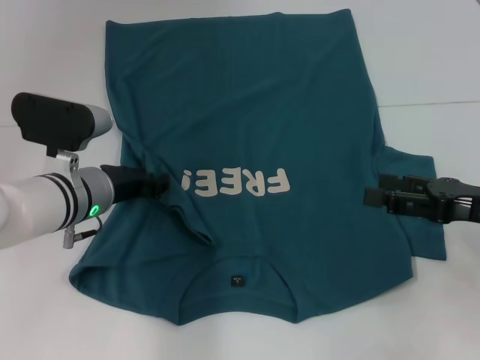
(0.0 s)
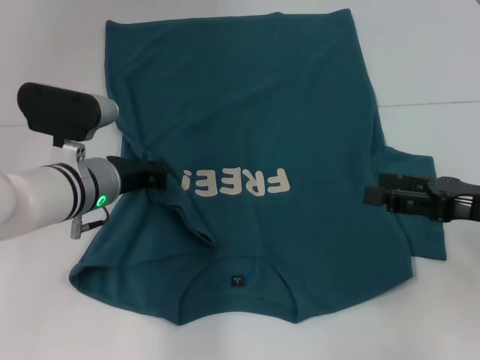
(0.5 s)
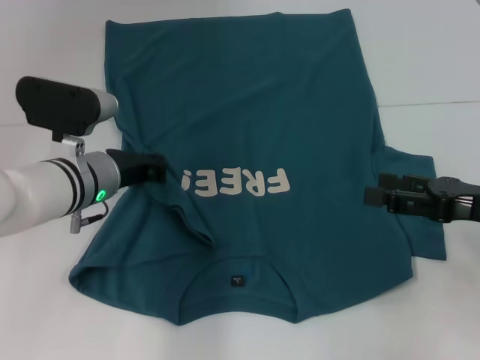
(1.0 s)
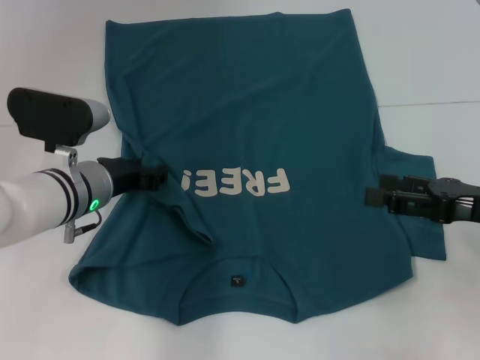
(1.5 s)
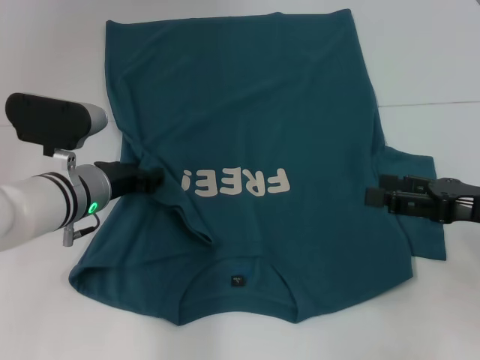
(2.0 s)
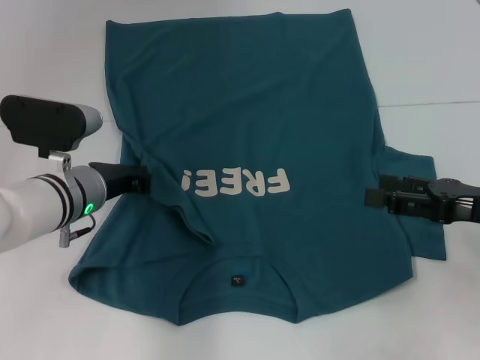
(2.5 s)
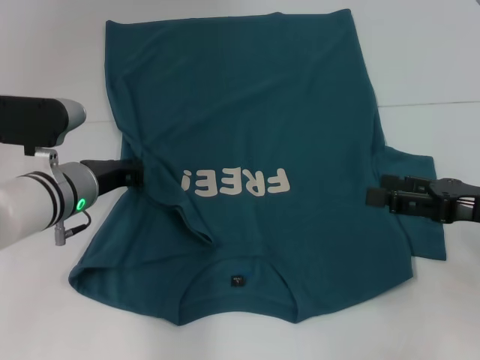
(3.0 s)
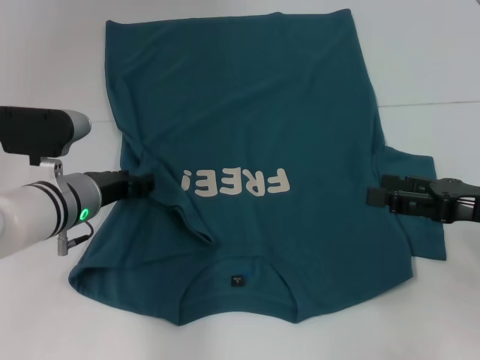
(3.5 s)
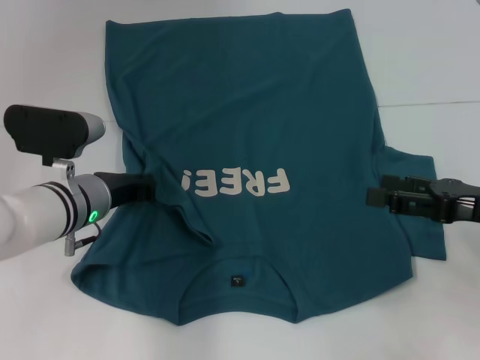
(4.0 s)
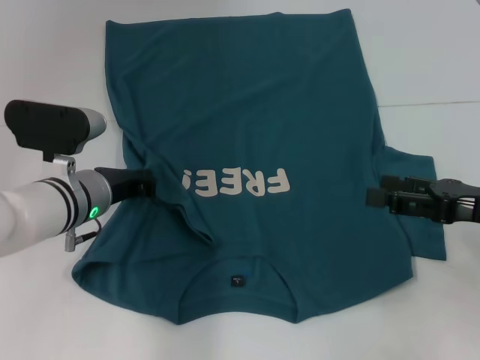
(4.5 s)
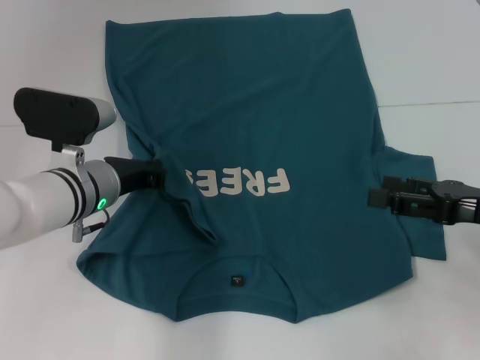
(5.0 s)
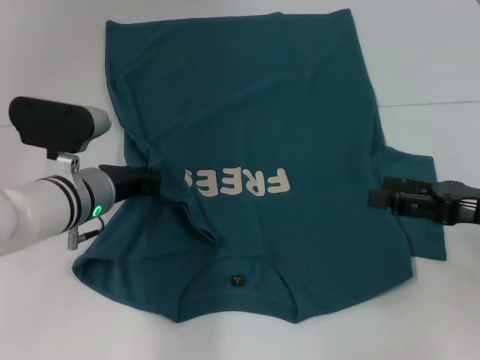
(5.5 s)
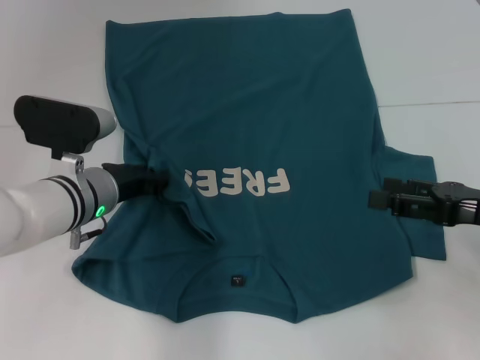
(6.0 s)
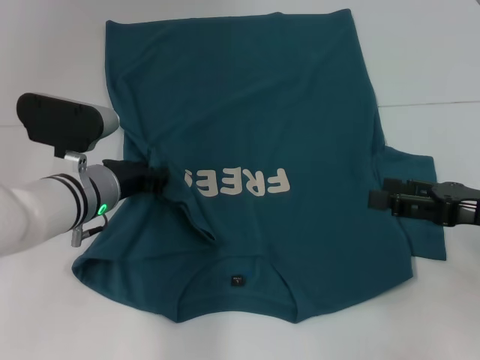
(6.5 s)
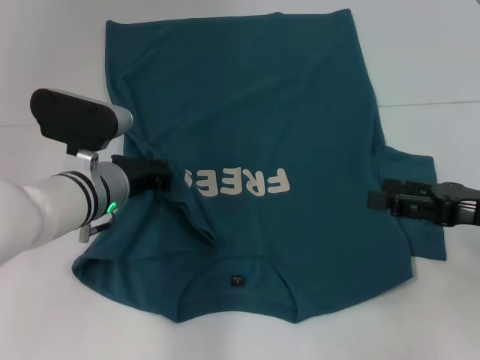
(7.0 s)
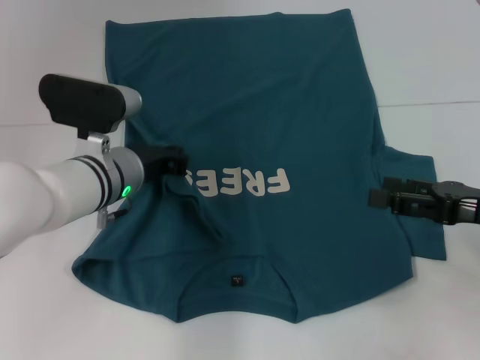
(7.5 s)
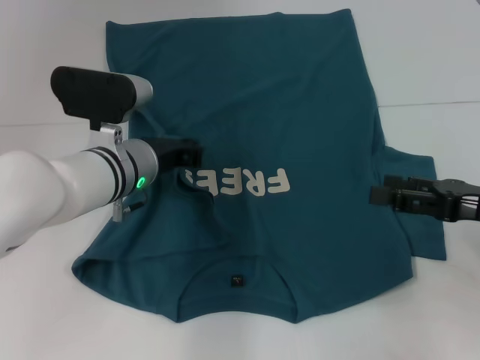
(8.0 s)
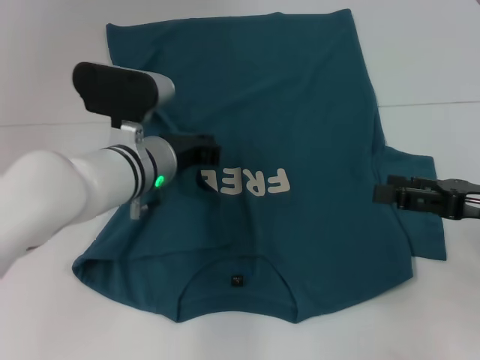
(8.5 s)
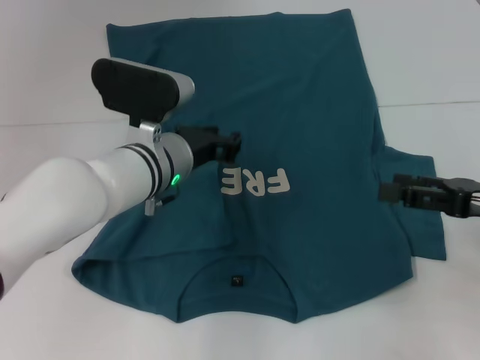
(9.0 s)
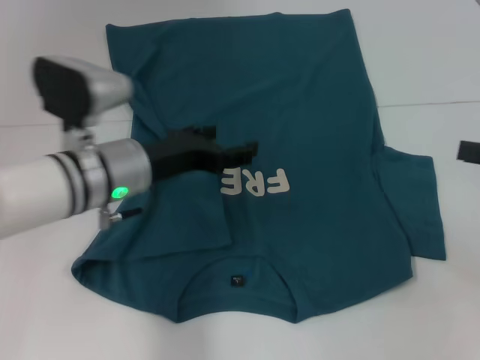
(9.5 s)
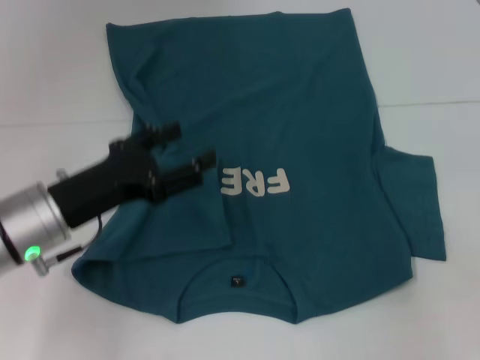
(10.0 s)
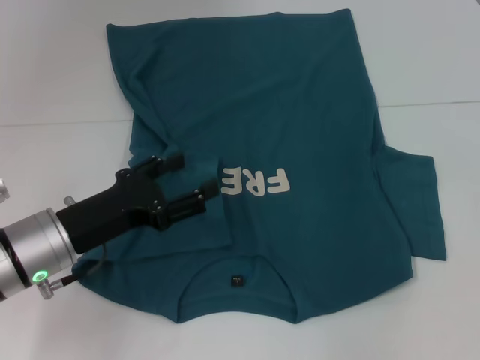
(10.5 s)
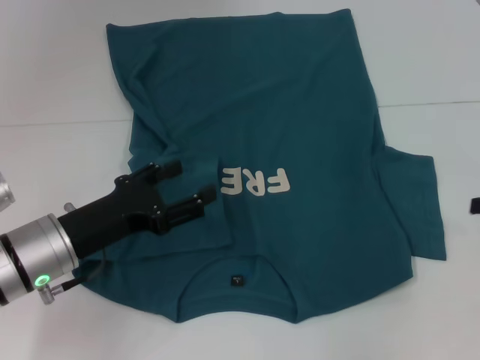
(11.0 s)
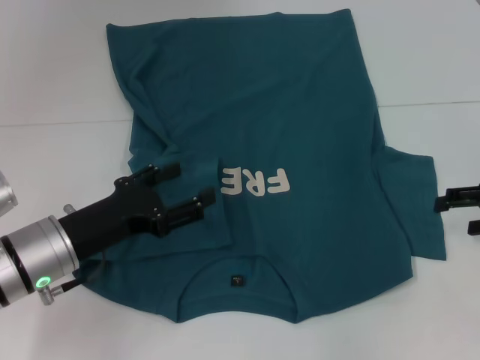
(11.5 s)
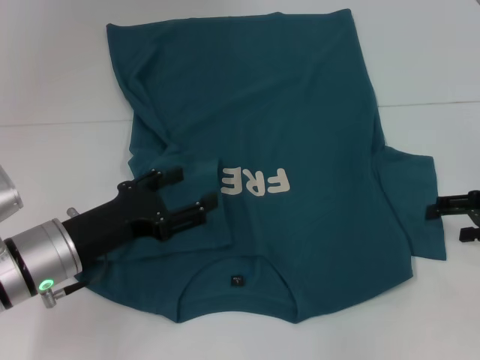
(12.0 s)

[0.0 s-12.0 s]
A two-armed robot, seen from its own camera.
Step, 0.0 to 9.0 s: Fold the bottom left sleeve with your left hand.
0.0 to 2.0 s: The left gripper closes, then reopens.
2.0 to 4.0 s: There are only small adjustments of the grippers.
4.0 to 6.0 s: The left gripper closes, then reopens.
6.0 to 8.0 s: The left gripper moves some 5 cm.
8.0 to 10.0 s: The left gripper travels to the left and backward by some 10 cm, and opens. Meanwhile the right gripper goes roughly 10 cm to the right and upward.
10.0 to 12.0 s: The right gripper heads downward and forward, covering about 10 cm.

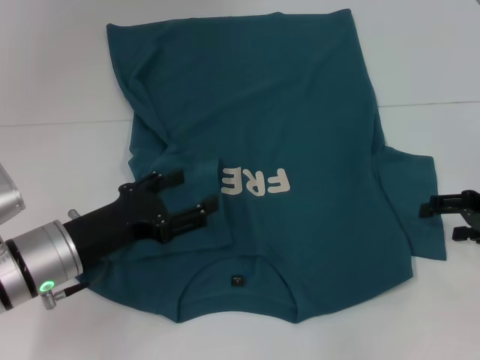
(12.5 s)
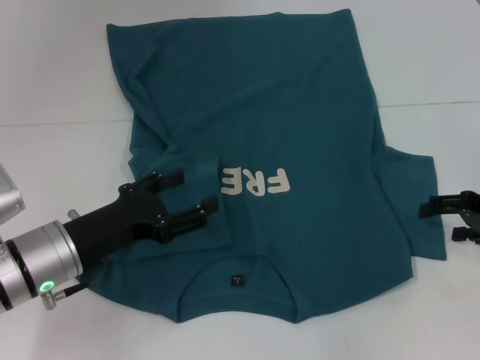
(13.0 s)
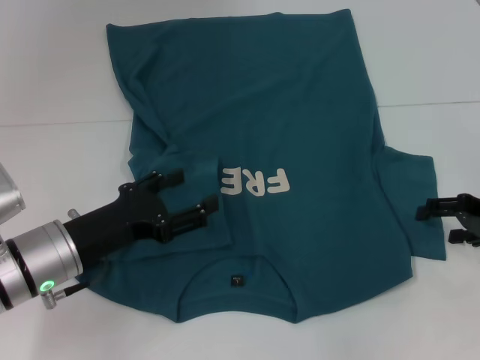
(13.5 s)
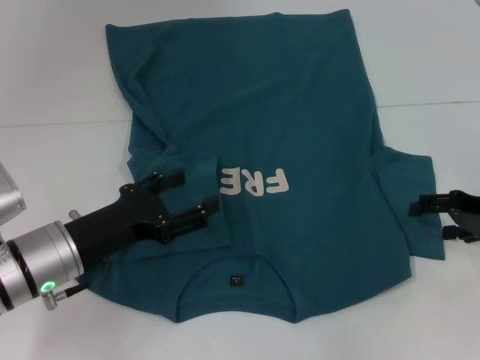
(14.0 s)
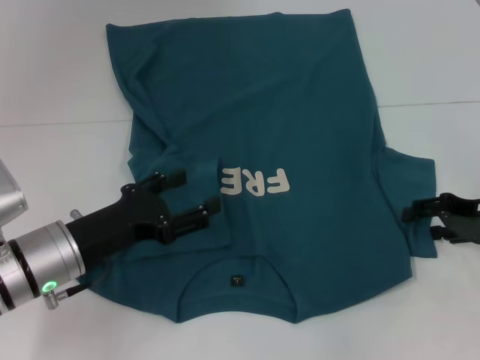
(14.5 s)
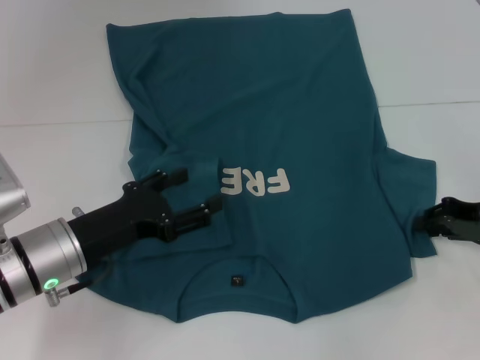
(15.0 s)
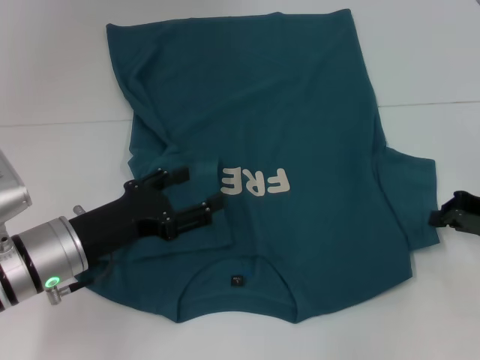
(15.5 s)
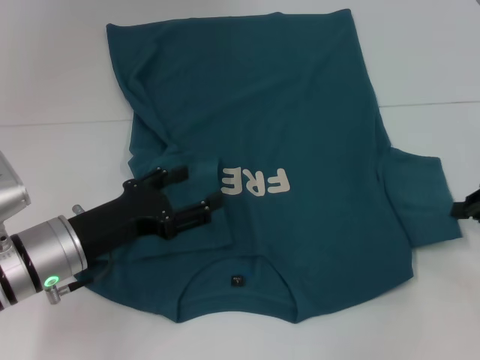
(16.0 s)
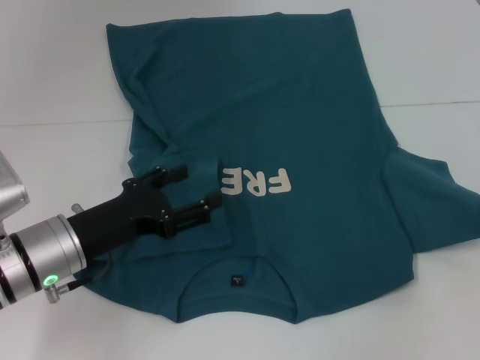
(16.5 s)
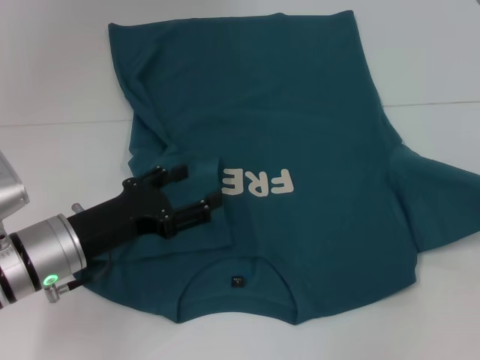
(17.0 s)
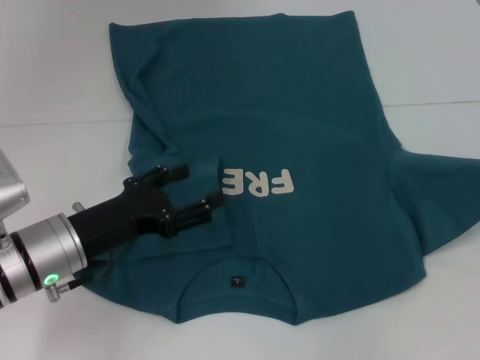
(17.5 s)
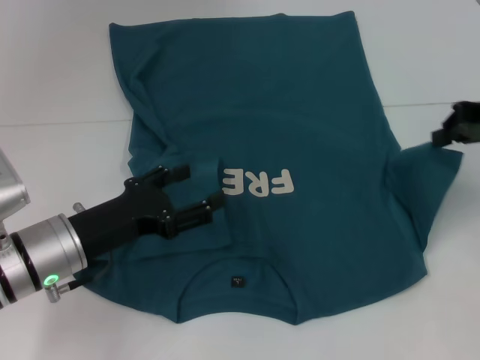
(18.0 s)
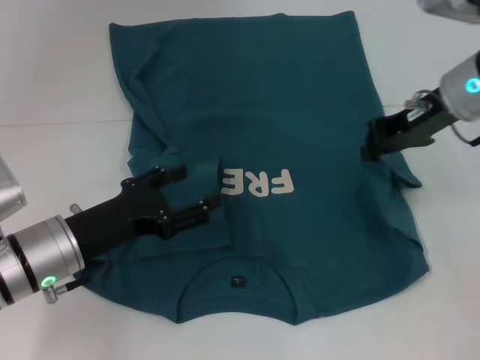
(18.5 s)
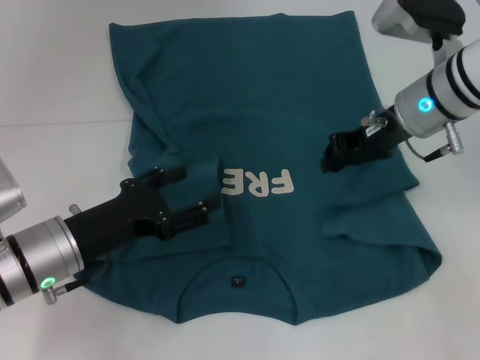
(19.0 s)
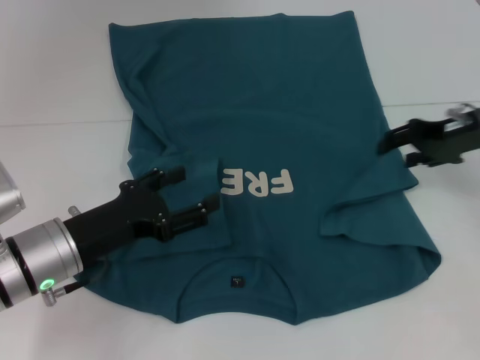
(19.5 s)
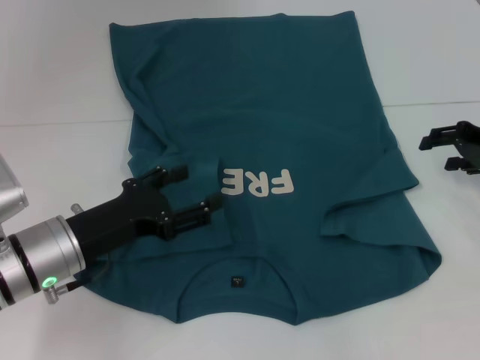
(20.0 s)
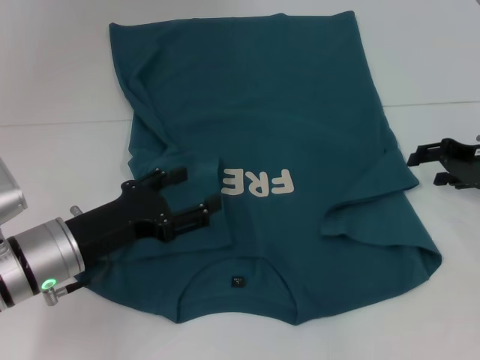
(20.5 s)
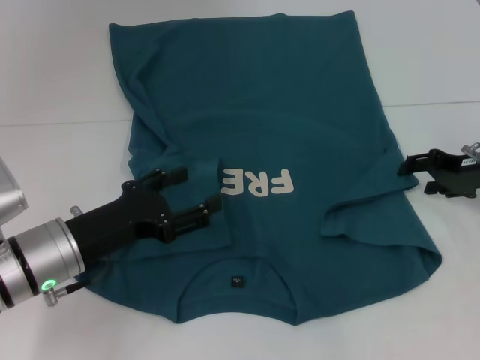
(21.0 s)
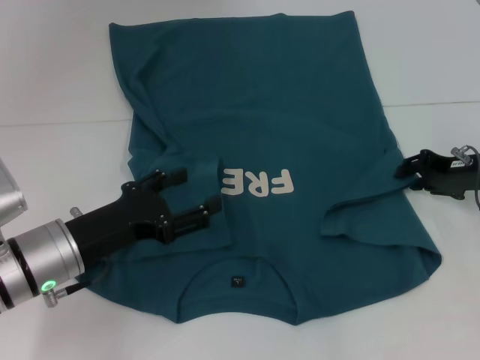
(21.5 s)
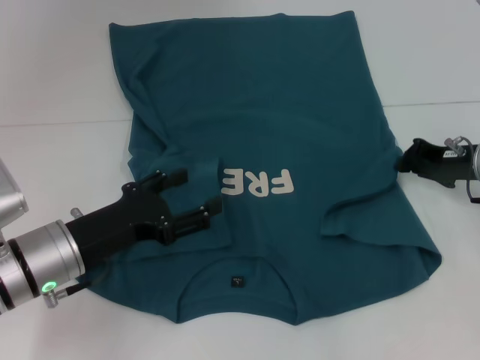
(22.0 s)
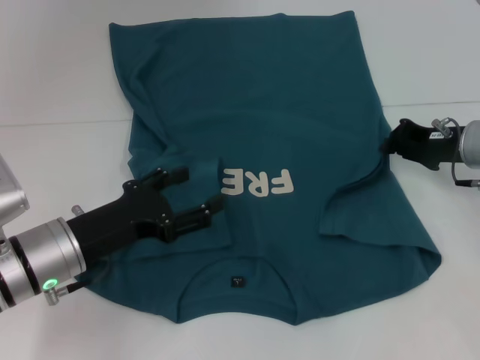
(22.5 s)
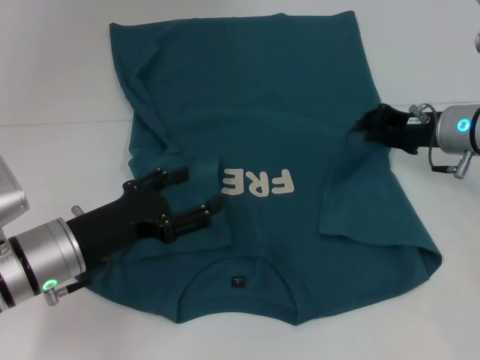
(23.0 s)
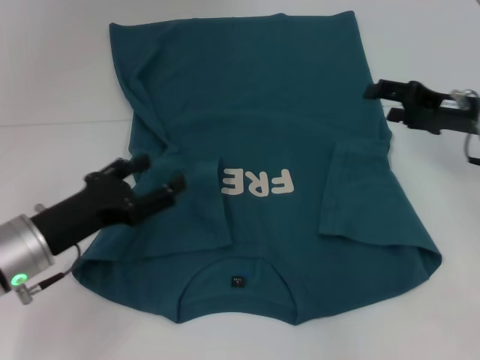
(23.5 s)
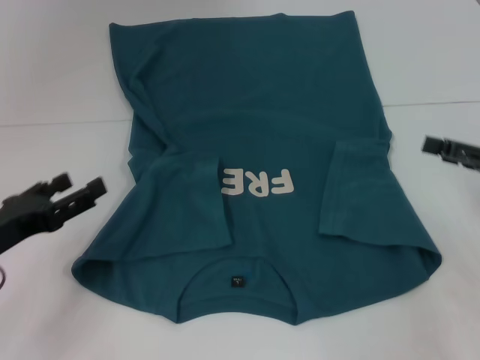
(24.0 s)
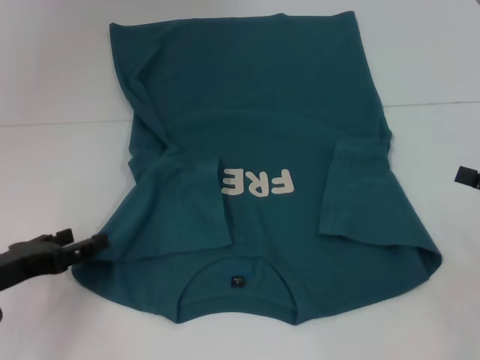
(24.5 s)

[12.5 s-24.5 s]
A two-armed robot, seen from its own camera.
Step, 12.5 to 23.0 s: Fold the bottom right sleeve to the right.
12.5 to 14.5 s: There are only small adjustments of the grippers.
14.5 to 16.5 s: The right gripper is displaced to the right by approximately 5 cm, and closes.
16.5 to 18.5 s: The right gripper travels to the left, forward and upward by roughly 20 cm.
18.5 to 20.5 s: The right gripper heads to the right and downward, covering about 15 cm, and opens.
20.5 to 22.5 s: The right gripper closes its fingers.
22.5 to 24.5 s: The right gripper is displaced backward and to the right by some 15 cm, and opens. Meanwhile the left gripper travels to the left by some 10 cm.

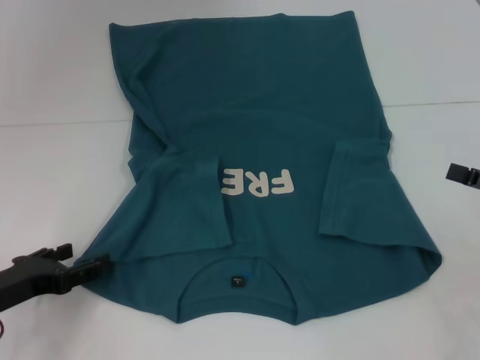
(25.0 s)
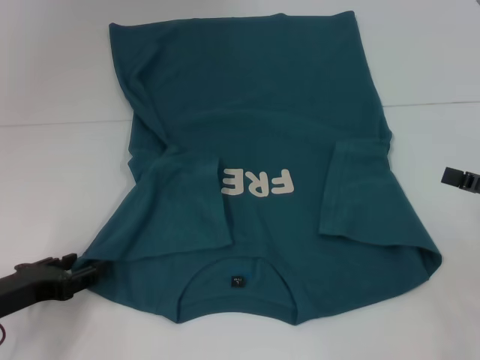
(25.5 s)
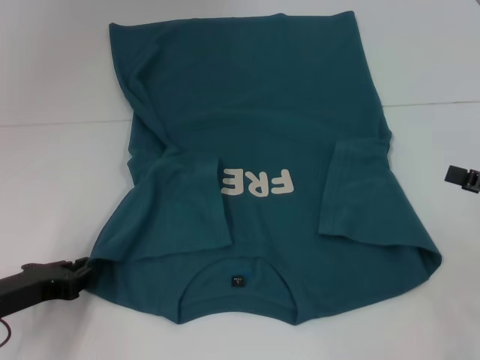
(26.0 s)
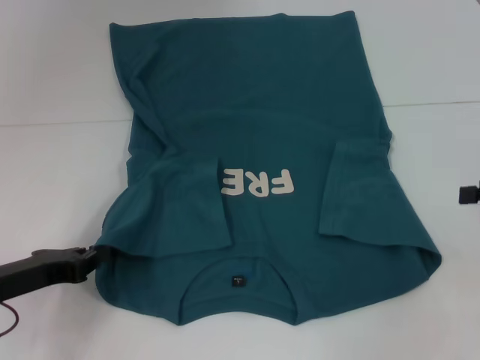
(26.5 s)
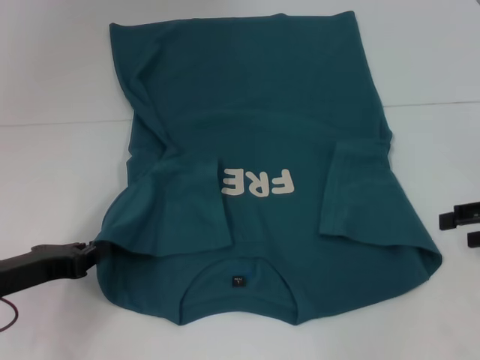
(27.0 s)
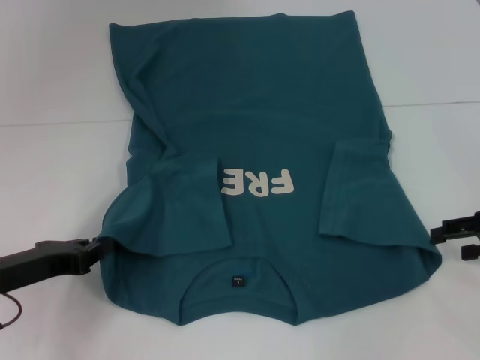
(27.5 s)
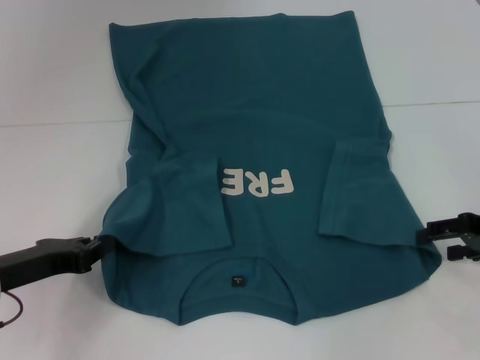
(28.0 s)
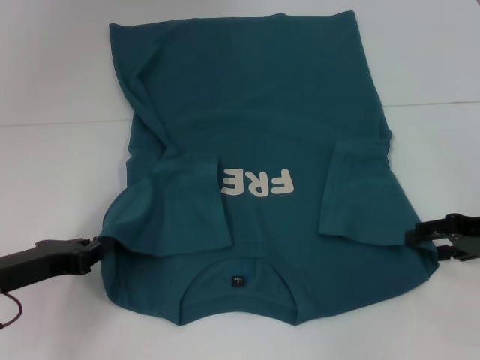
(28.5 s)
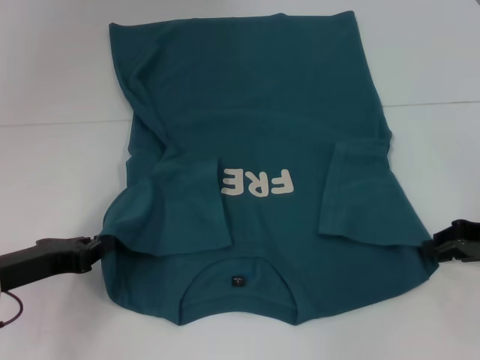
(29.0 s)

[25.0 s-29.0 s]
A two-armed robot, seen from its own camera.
25.0 to 27.0 s: The left gripper closes its fingers. The right gripper ends up some 5 cm from where it was.
27.0 to 29.0 s: The right gripper ends up some 5 cm from where it was, and closes up.
